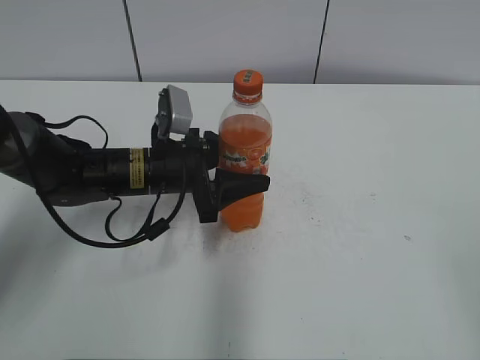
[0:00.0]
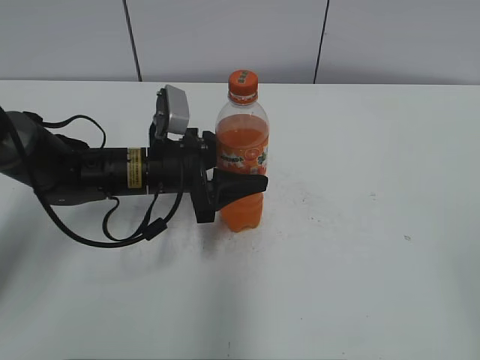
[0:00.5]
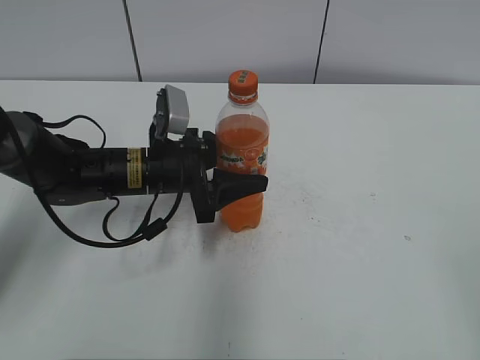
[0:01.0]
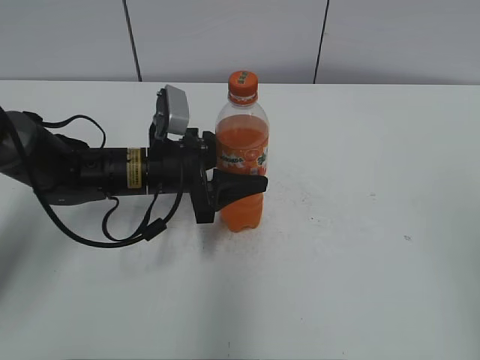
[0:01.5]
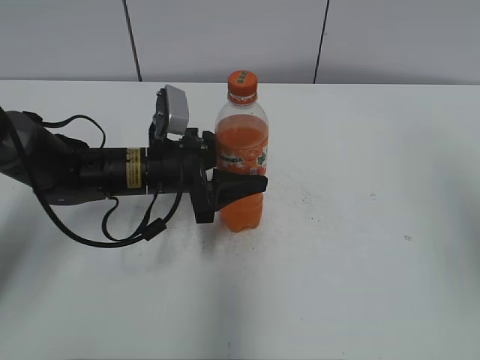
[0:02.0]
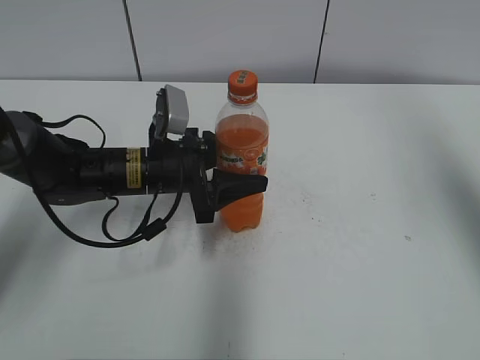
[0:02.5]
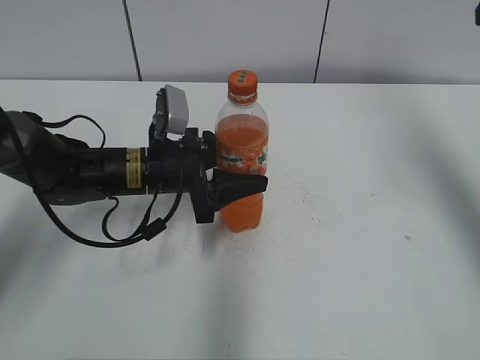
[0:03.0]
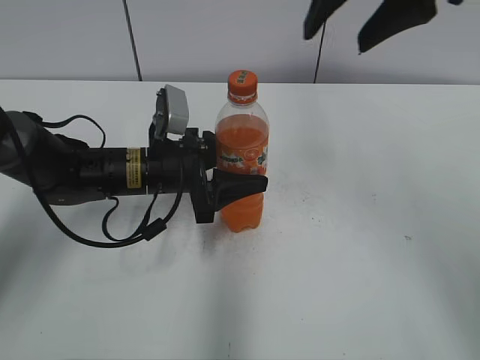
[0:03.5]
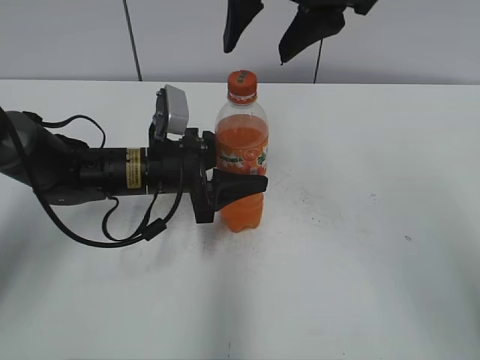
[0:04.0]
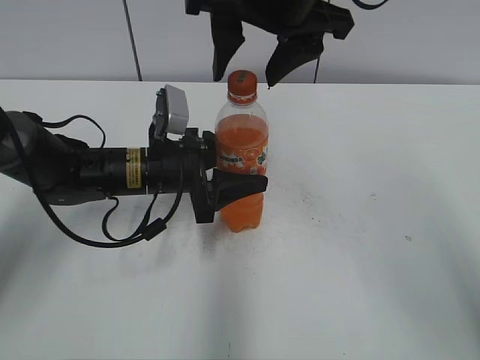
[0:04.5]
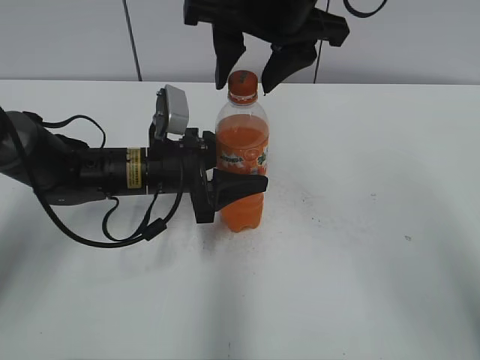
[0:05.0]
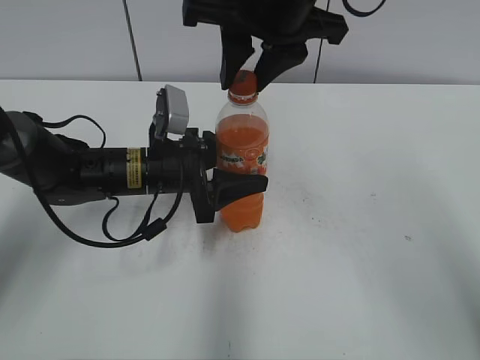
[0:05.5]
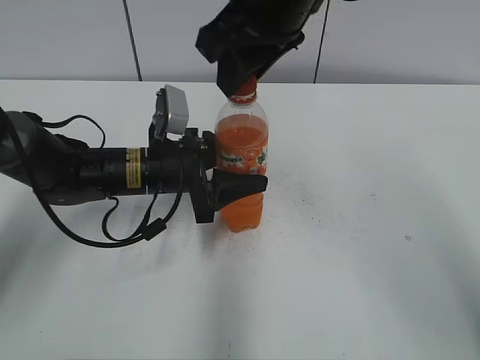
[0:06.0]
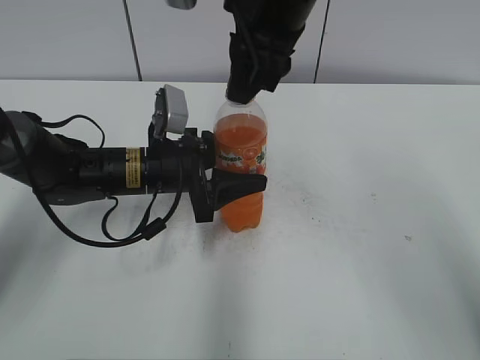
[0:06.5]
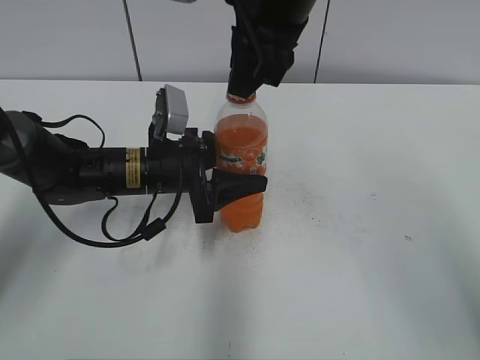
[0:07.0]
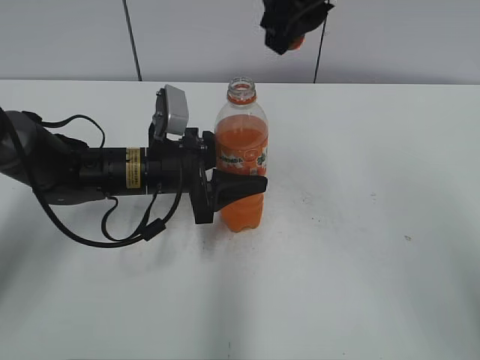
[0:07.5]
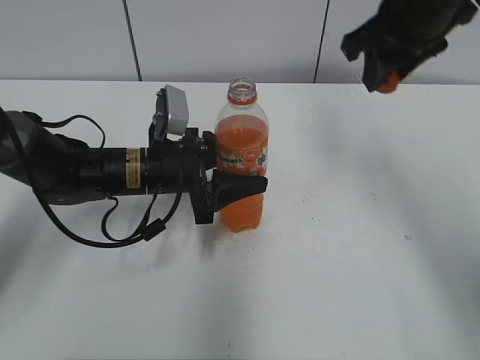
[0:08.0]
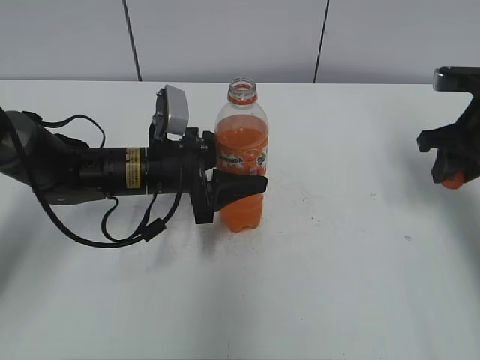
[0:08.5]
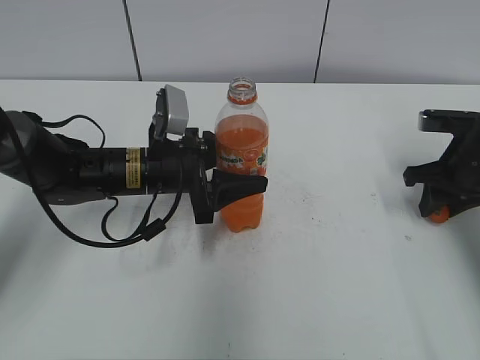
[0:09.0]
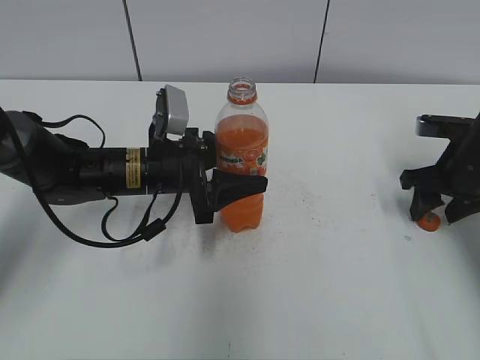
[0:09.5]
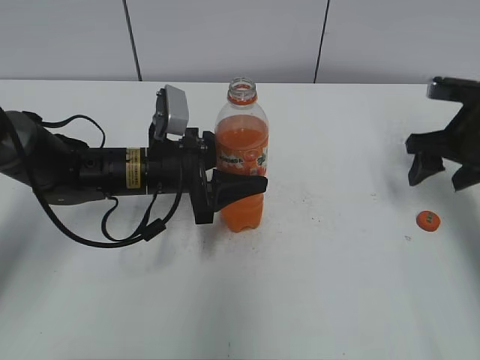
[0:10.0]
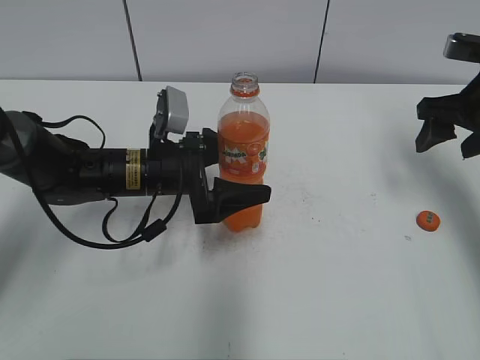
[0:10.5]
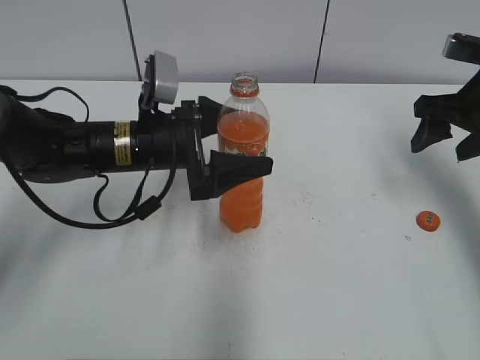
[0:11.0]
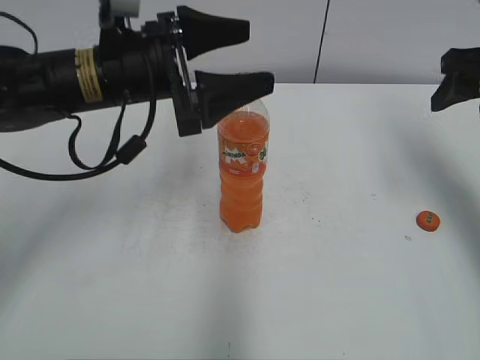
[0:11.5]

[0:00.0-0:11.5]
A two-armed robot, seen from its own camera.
Step, 0:07.5 to 0:09.5: Place the bottle cap on the right.
0:00.0 to 0:02.0: The right gripper shifts some 15 cm forward and upward.
0:02.0 to 0:04.0: The right gripper is displaced to the left and forward by about 30 cm.
0:04.0 to 0:06.0: The right gripper closes its fingers.
0:07.5 to 0:09.5: The right gripper heads downward and to the right, covering about 35 cm, and opens up.
0:09.5 to 0:11.5: The two grippers go about 15 cm upward. The left gripper opens its fingers. Meanwhile the right gripper opens its fingers.

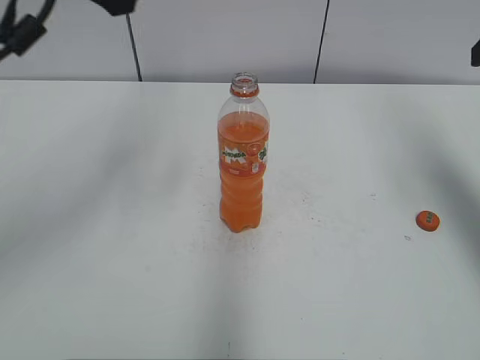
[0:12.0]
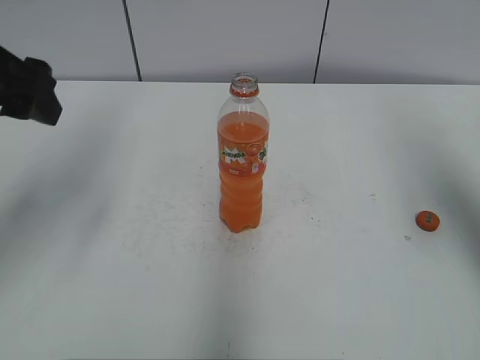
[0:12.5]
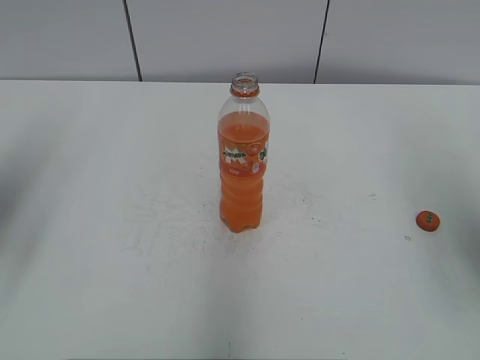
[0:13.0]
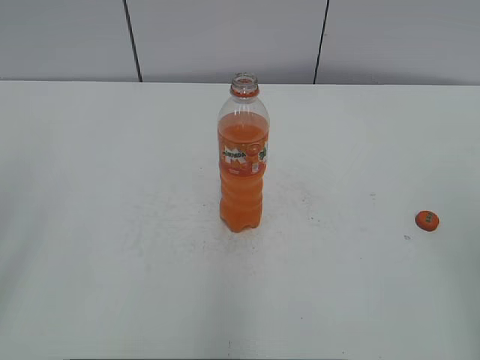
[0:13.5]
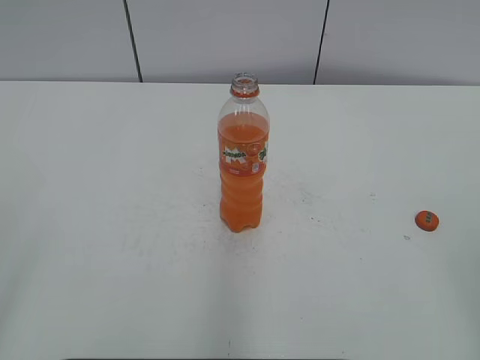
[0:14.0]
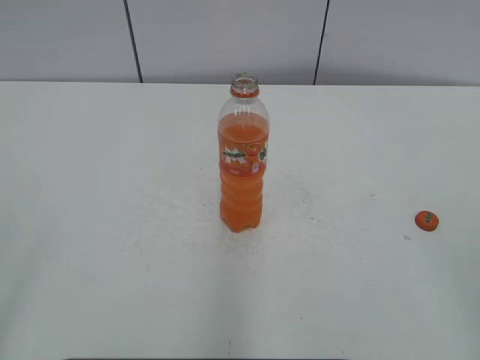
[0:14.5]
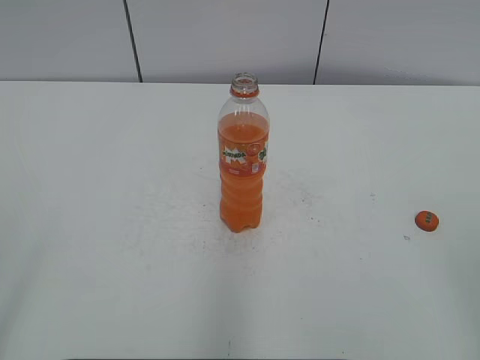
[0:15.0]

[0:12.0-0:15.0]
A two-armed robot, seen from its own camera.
0:12.0 to 0:13.5: The right gripper is displaced backward by about 25 cm. Meanwhile the left gripper moves backward and to the left, some 25 cm.

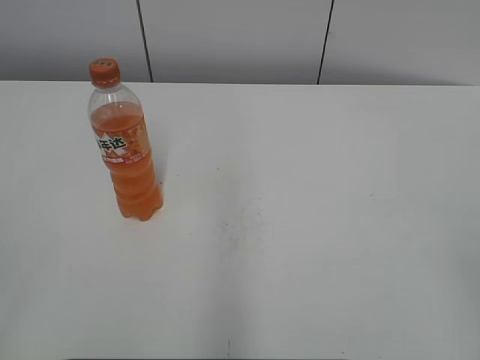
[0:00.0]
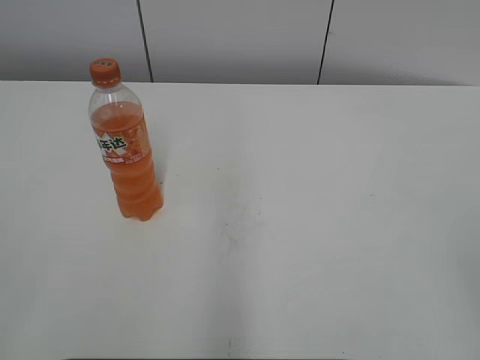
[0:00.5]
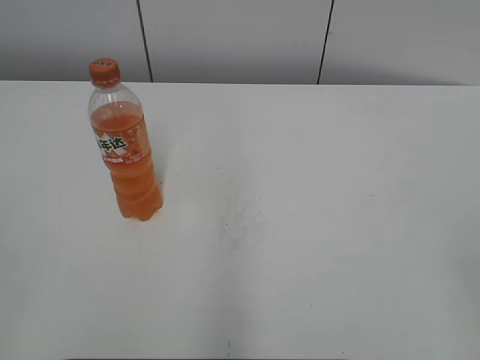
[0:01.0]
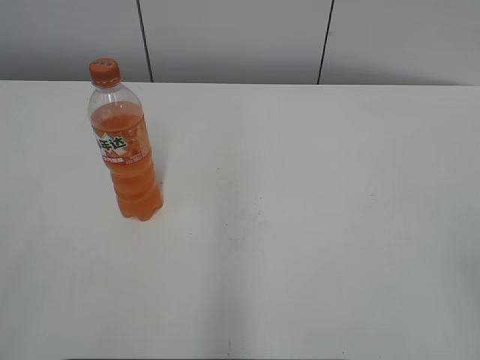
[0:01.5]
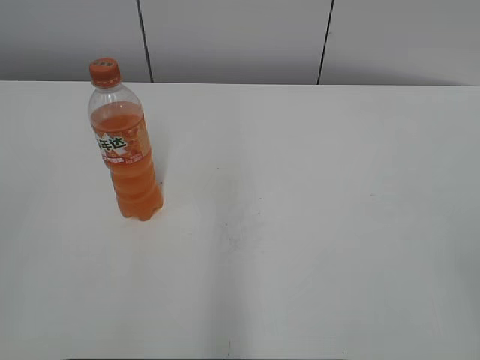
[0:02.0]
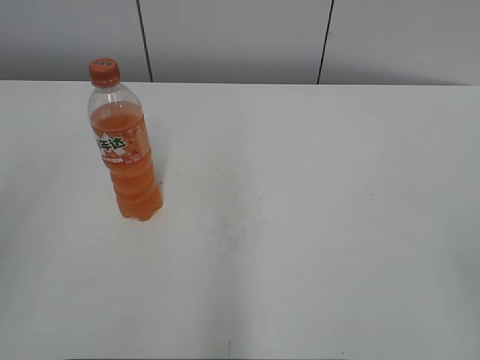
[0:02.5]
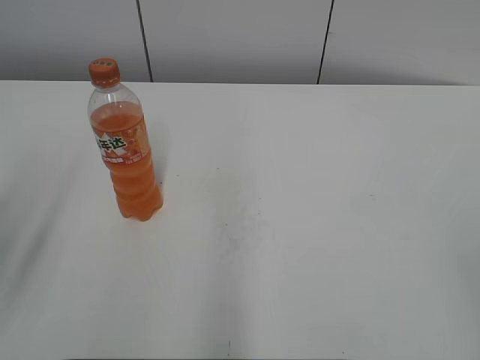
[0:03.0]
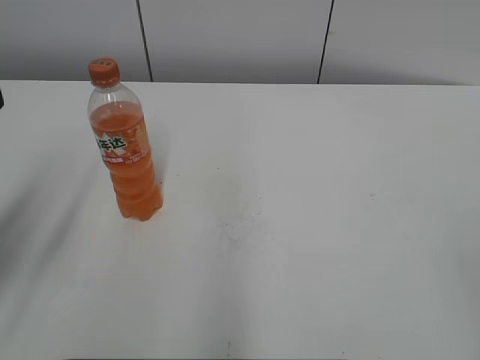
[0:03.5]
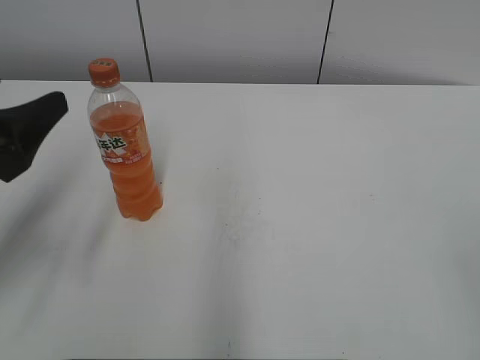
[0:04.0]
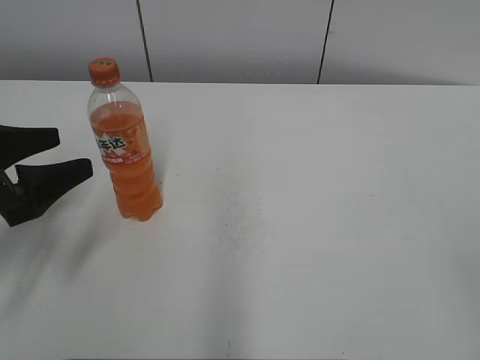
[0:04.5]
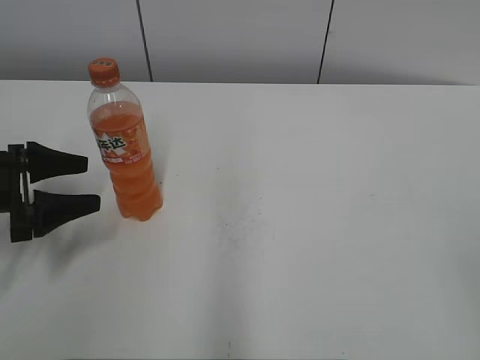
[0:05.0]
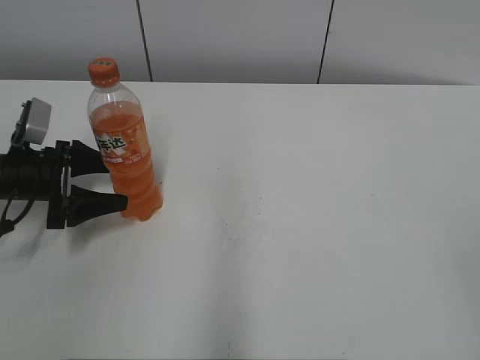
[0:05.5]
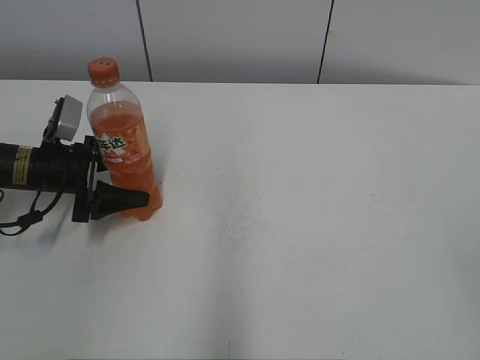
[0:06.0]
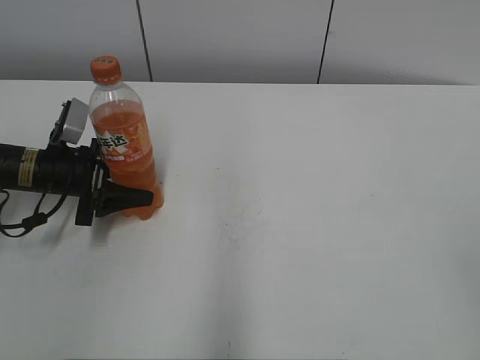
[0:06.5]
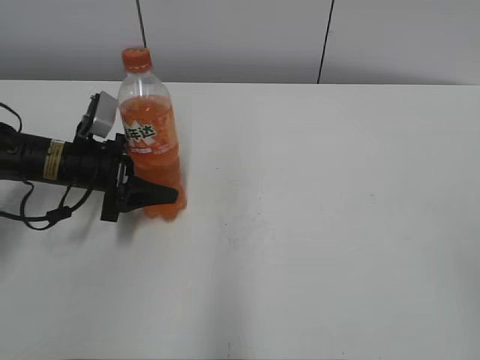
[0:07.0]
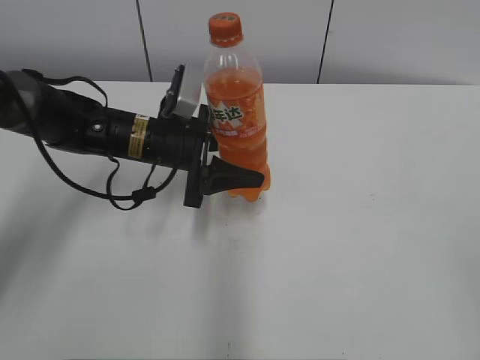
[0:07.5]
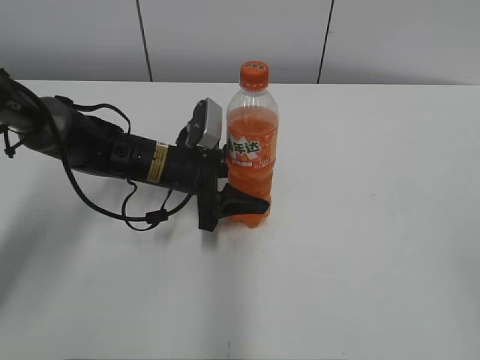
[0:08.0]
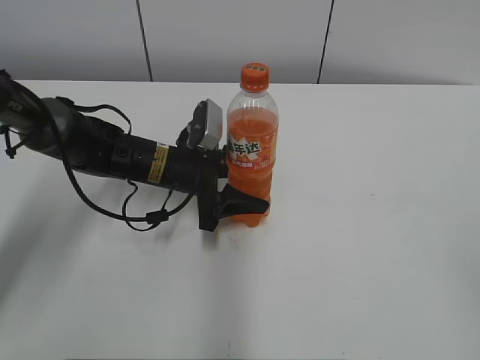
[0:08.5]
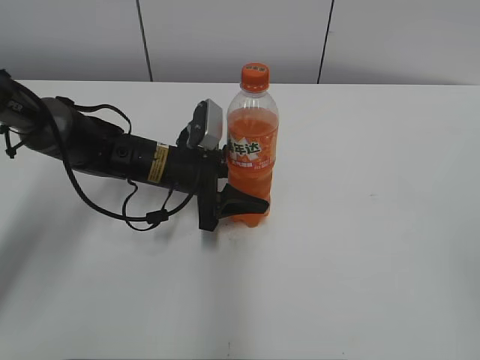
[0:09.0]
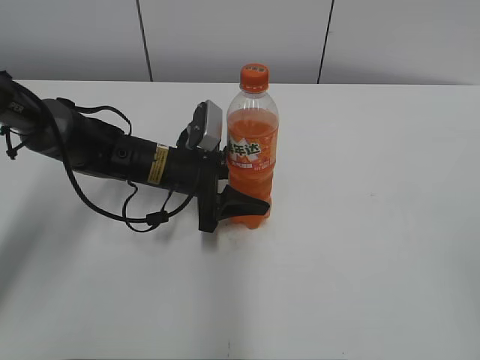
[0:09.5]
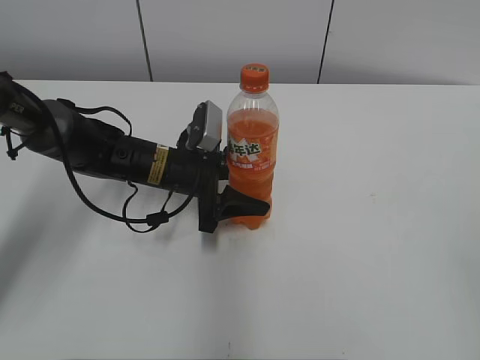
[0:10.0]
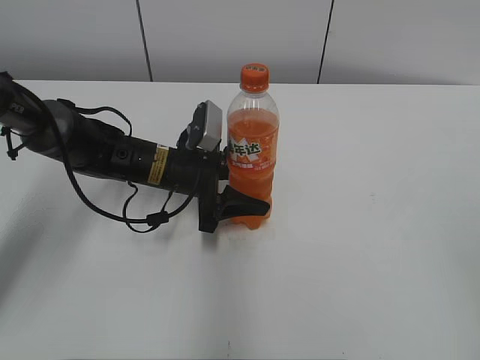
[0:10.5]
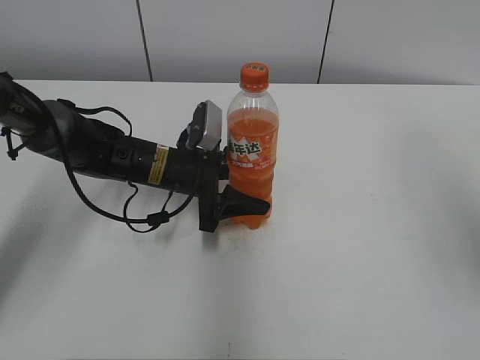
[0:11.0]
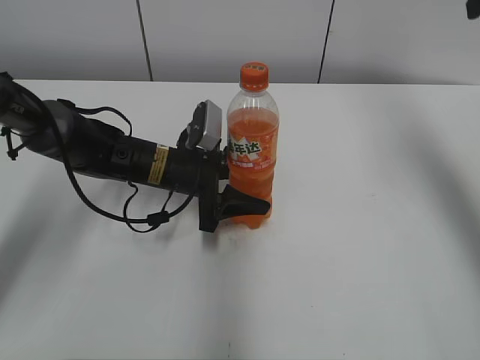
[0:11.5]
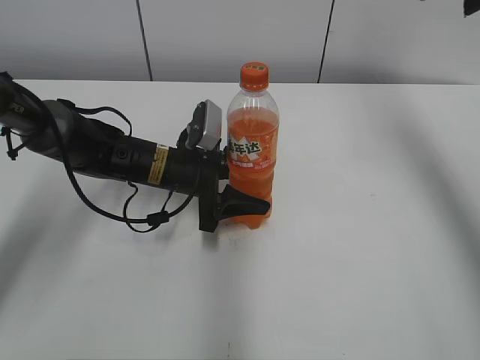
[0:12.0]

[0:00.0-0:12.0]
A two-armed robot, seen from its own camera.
Step, 0:00.0 to 0:06.0: Grab the Mirinda with the left hand.
Step, 0:07.0 to 0:08.5: Move the Mirinda from left to right.
0:02.0 to 0:04.0: The left gripper moves forward and downward, some 25 cm, and opens up.
0:04.0 to 0:06.0: The left gripper moves forward and downward, roughly 25 cm.
0:06.0 to 0:08.0: The left gripper goes some 15 cm to the right, and closes up.
0:08.0 to 0:10.0: Both grippers stay put.
0:10.0 to 0:12.0: The right gripper heads forward, covering roughly 40 cm.
